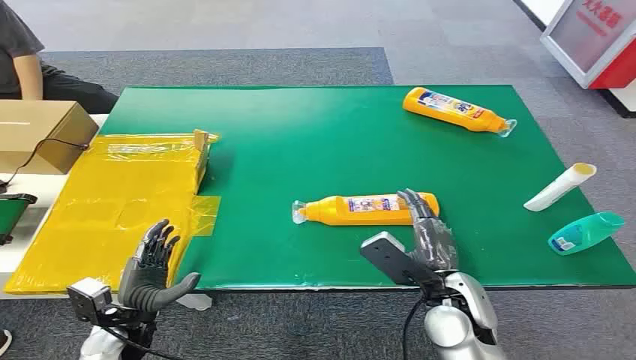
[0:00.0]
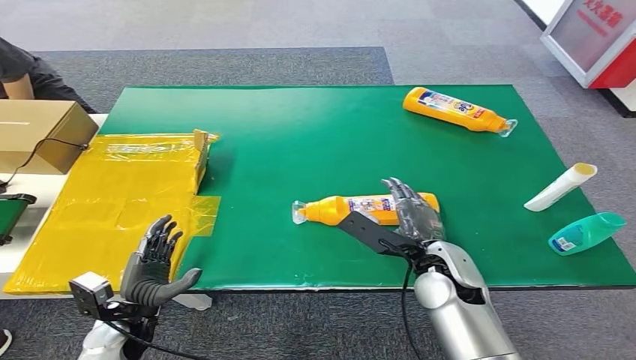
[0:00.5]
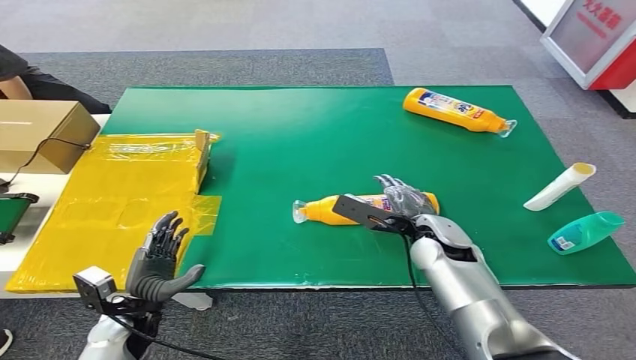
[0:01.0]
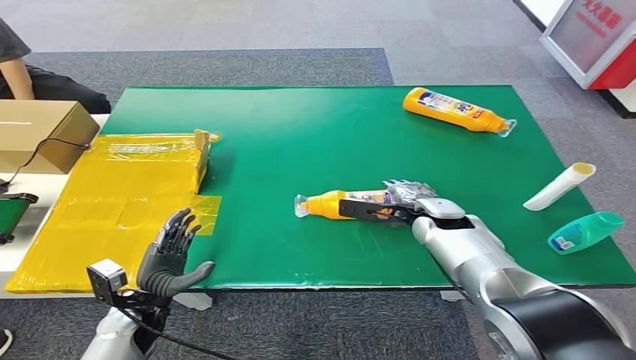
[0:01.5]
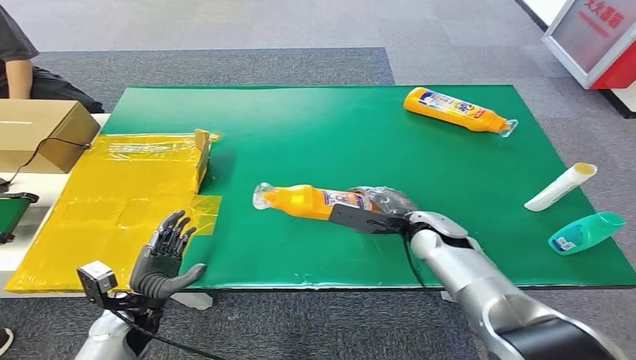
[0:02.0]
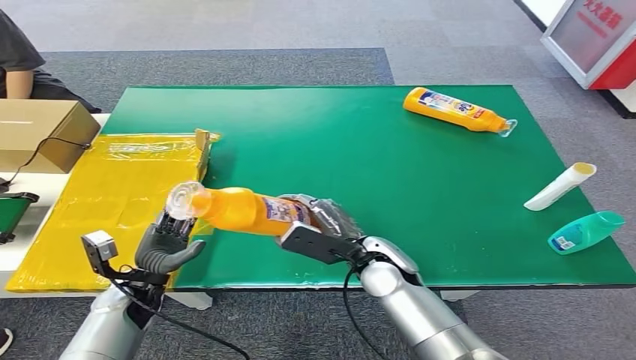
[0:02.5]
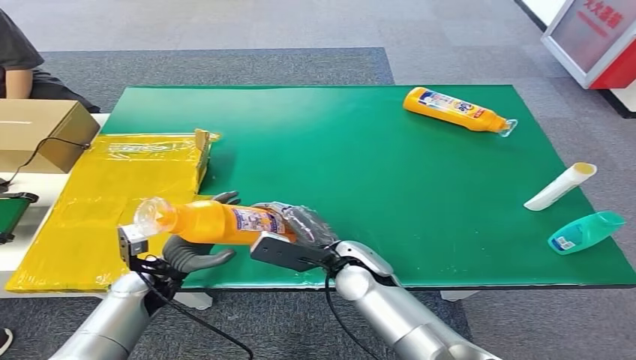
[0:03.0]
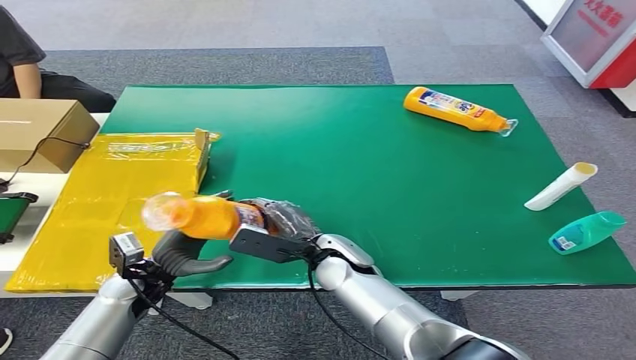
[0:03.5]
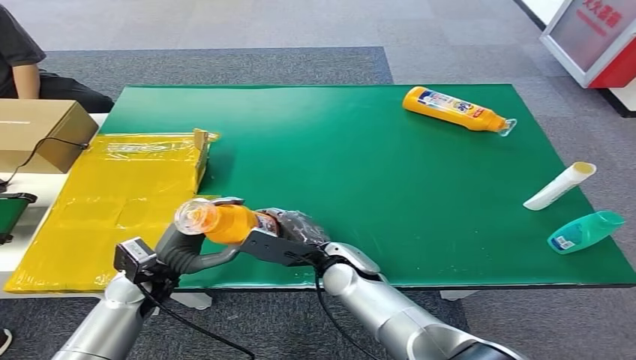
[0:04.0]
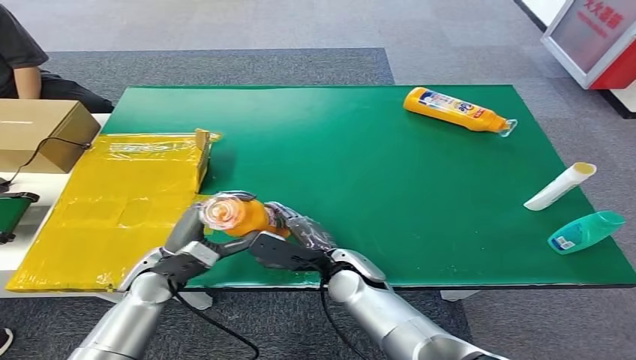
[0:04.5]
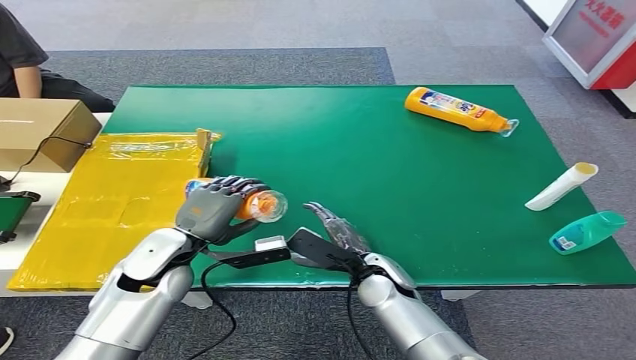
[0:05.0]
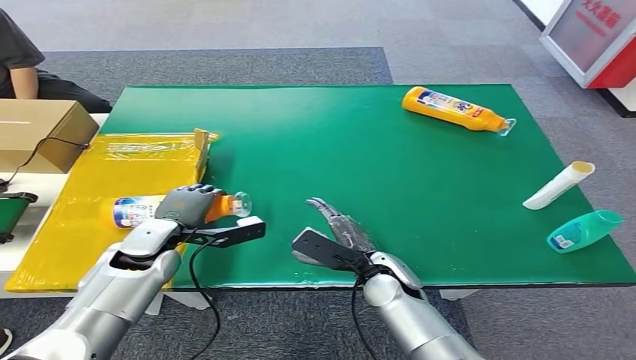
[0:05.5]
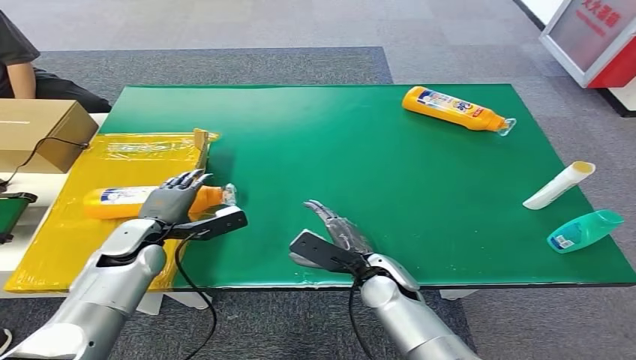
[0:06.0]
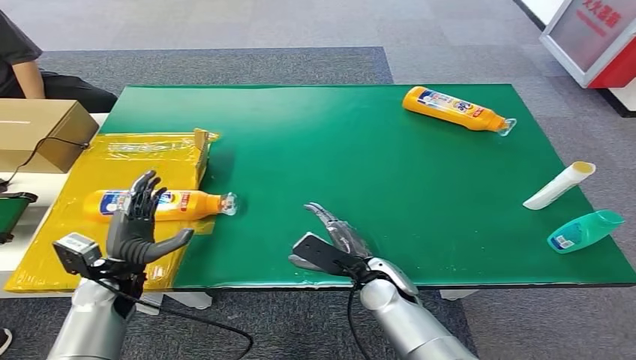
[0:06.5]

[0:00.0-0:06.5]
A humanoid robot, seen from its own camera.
Step, 0:00.0 to 0:02.0: Pick up the bottle from the table.
Step, 0:02.5 to 0:06.5: Turn the bottle to the front side.
0:04.5 to 0:06.5: The right hand ends up approximately 5 cm from where it was. The left hand is displaced to the left by approximately 5 cm.

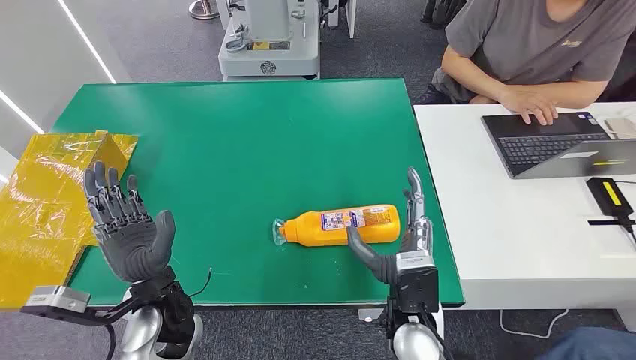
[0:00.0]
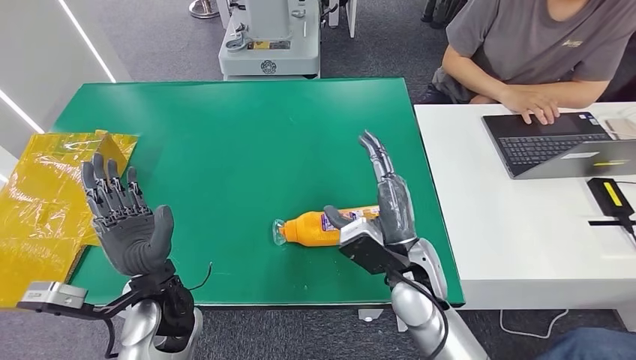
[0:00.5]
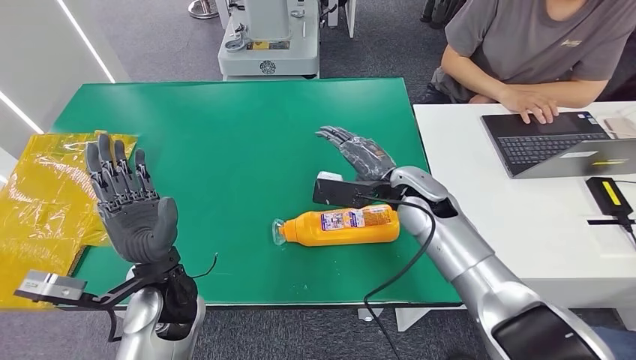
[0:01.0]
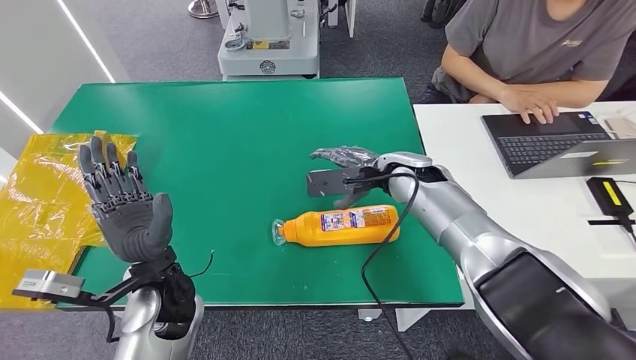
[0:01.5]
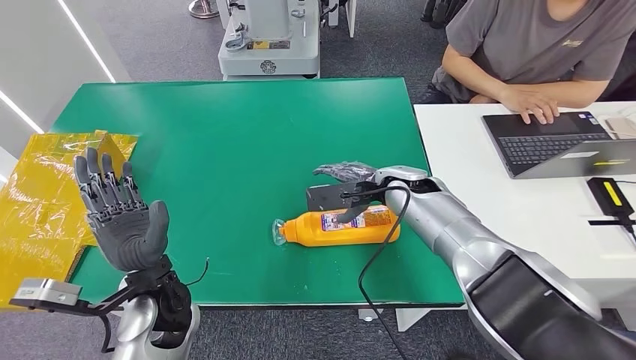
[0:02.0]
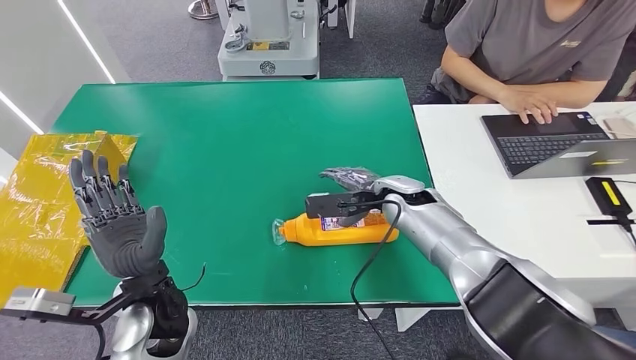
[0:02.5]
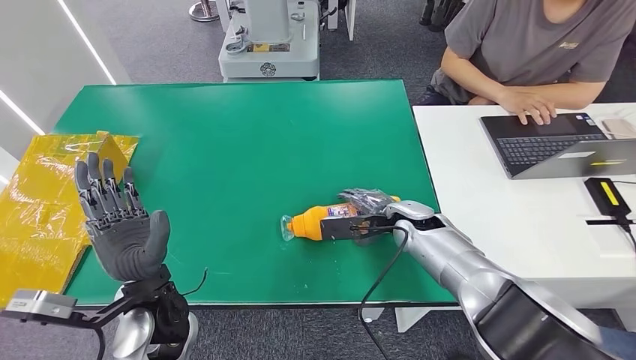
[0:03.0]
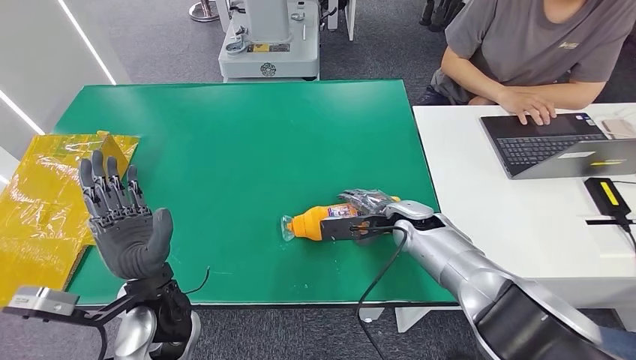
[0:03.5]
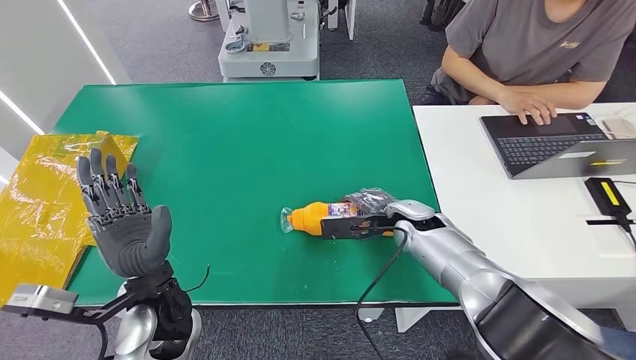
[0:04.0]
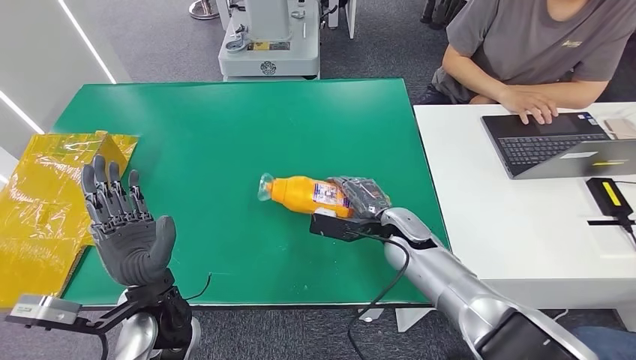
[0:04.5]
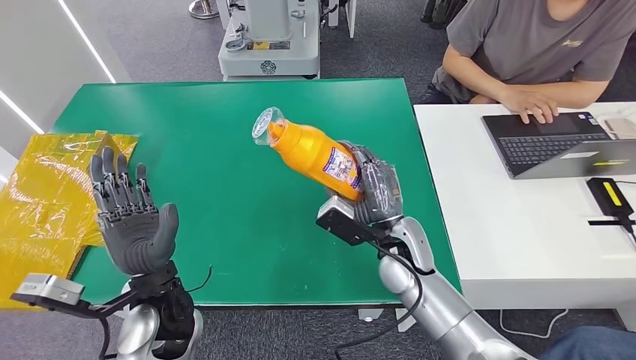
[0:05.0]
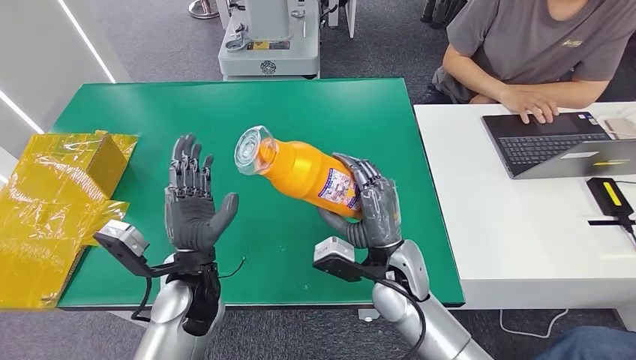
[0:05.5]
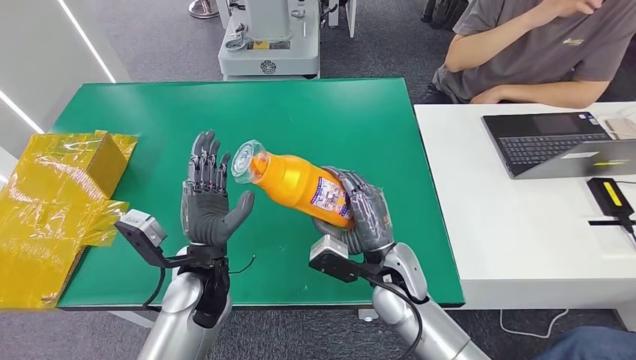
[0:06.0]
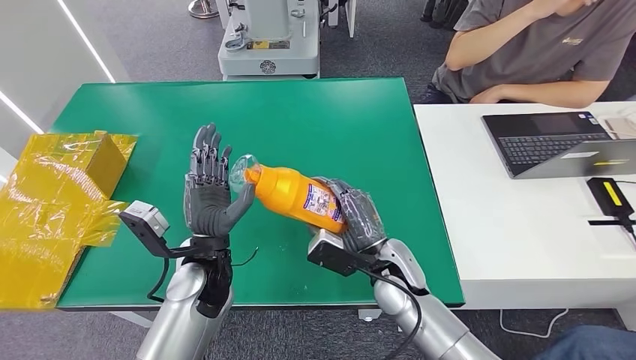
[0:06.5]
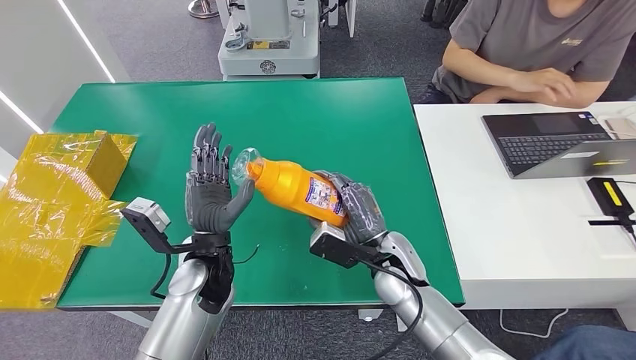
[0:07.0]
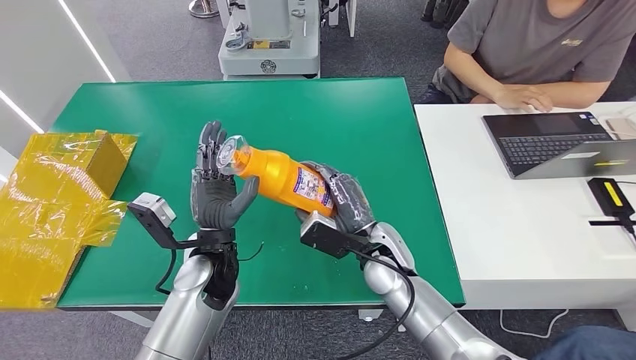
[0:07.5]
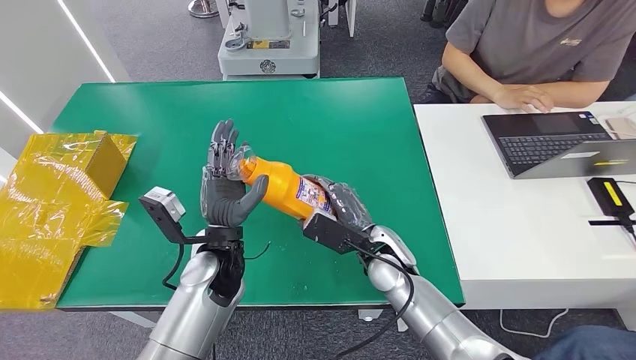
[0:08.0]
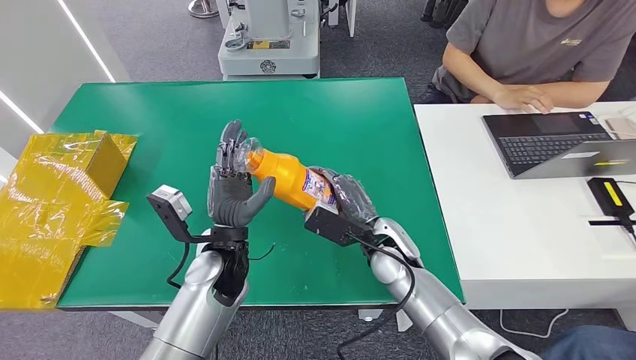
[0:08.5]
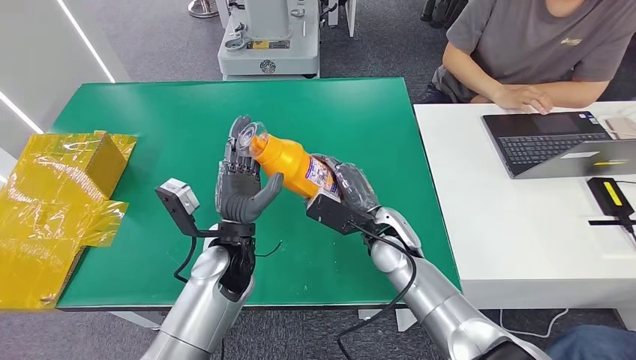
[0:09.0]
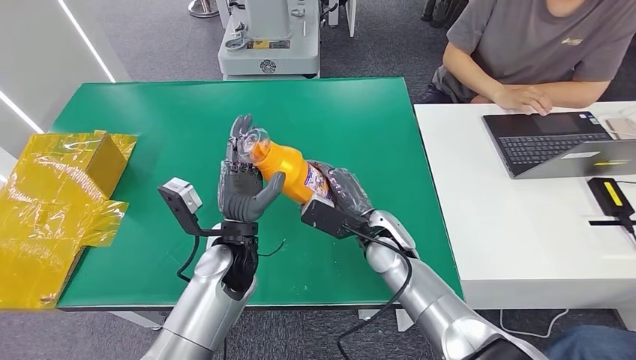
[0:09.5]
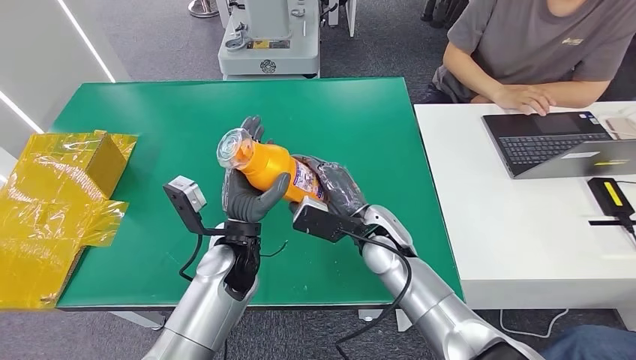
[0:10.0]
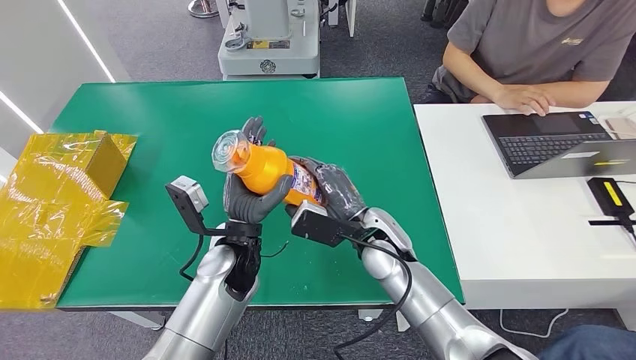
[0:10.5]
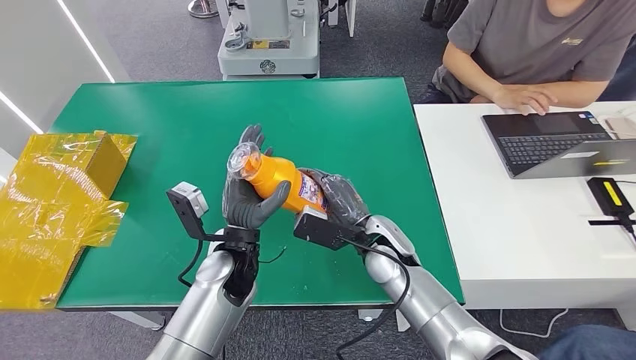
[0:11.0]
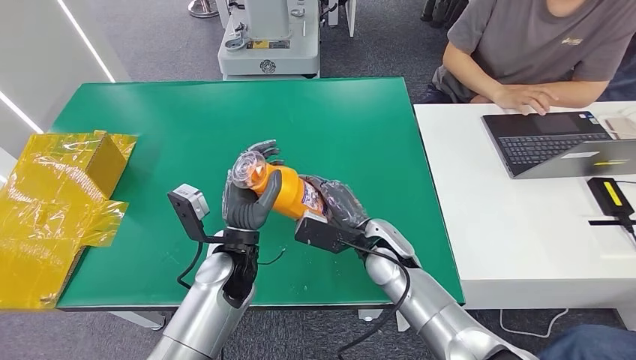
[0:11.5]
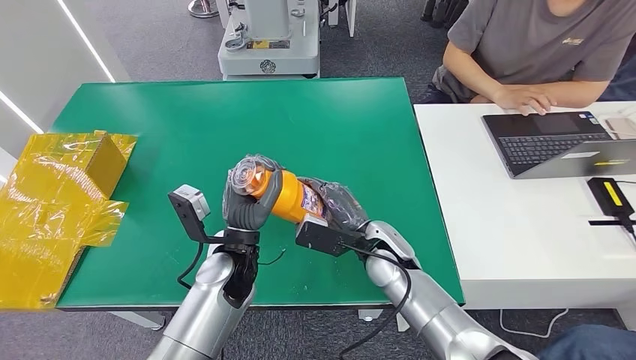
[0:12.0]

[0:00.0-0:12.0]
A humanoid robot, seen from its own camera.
Step, 0:00.0 to 0:07.5: Pick up the bottle from the table.
0:02.0 to 0:04.0: The right hand travels downward by about 5 cm.
0:08.0 to 0:12.0: The hands move only a little.

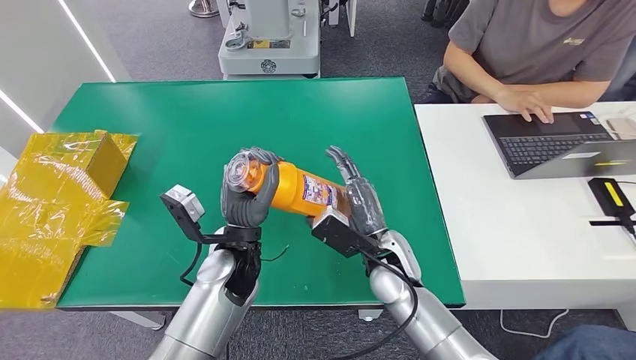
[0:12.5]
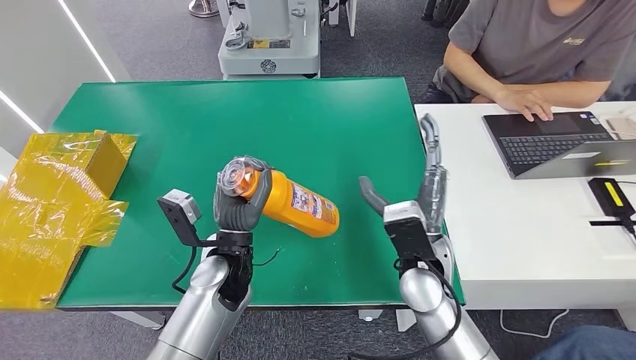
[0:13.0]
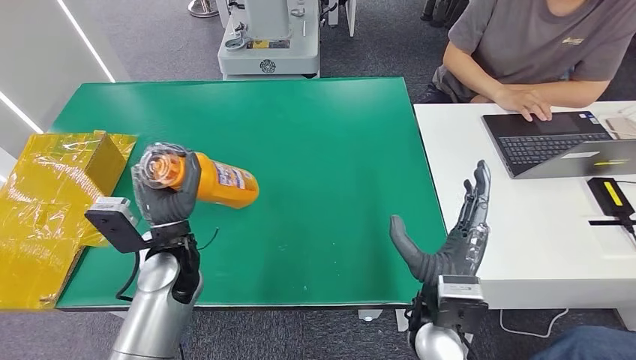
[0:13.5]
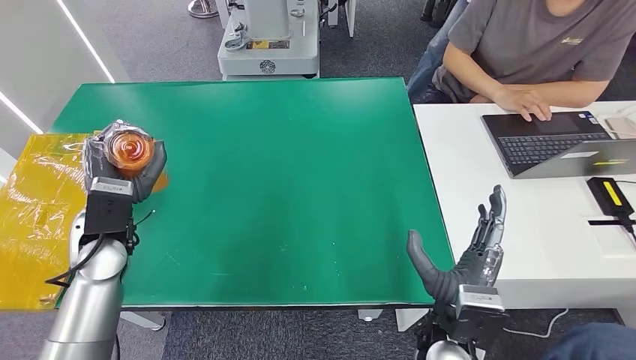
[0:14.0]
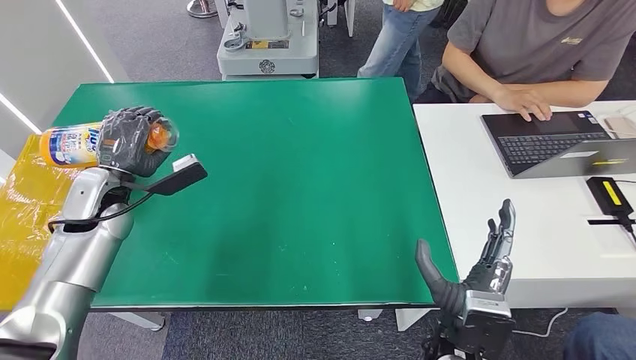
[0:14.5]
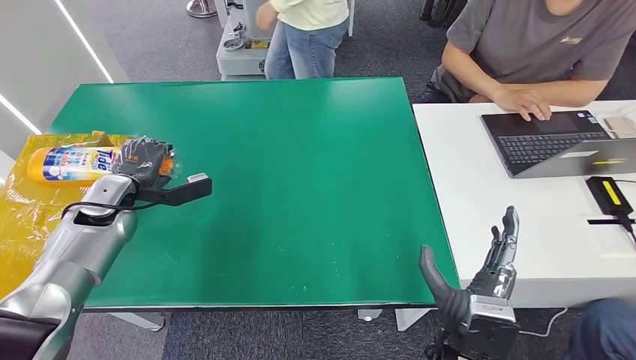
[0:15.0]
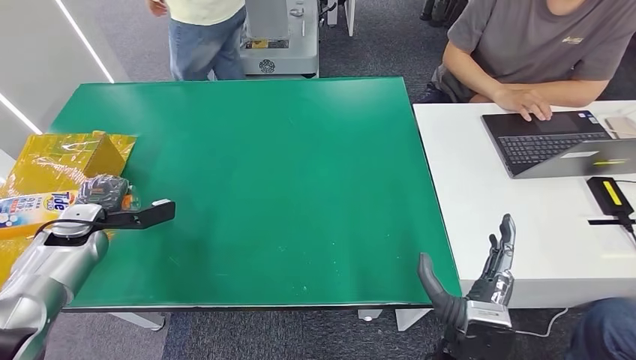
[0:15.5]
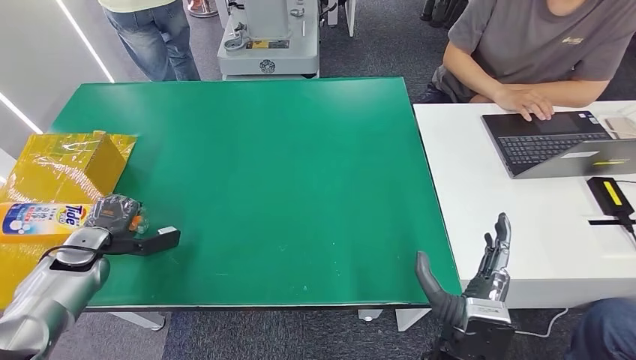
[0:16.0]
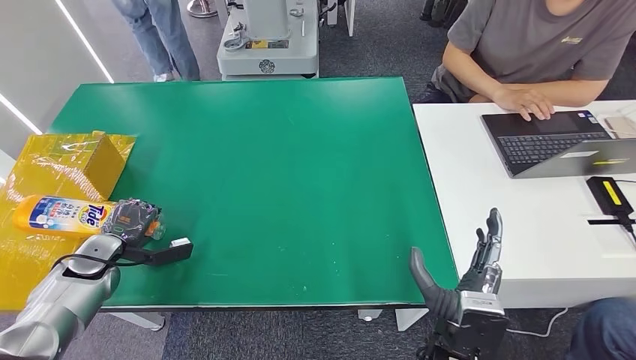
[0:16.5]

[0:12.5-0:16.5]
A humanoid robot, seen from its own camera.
0:14.5 to 0:16.5: The left hand heads downward, to the left and backward, covering about 15 cm.
